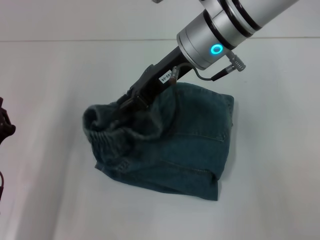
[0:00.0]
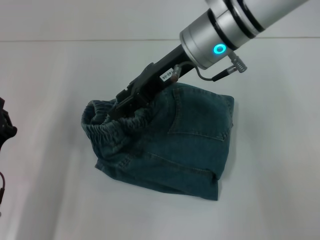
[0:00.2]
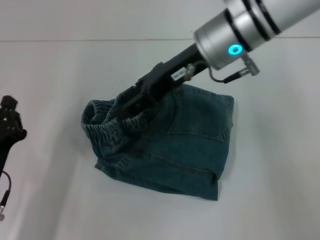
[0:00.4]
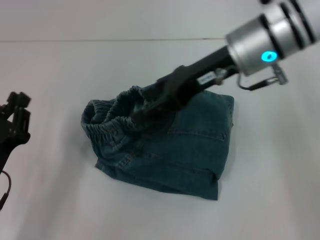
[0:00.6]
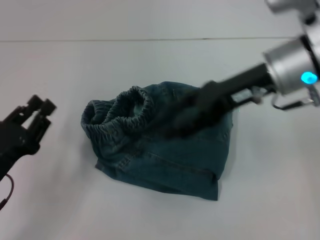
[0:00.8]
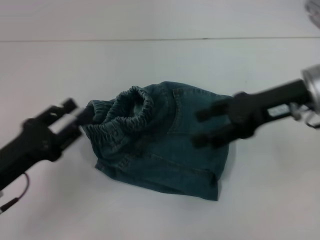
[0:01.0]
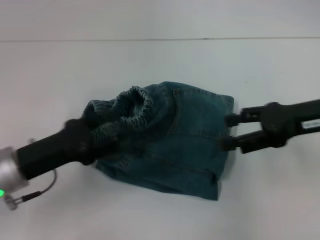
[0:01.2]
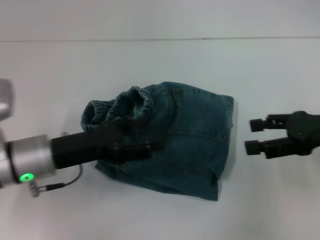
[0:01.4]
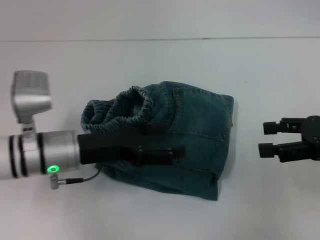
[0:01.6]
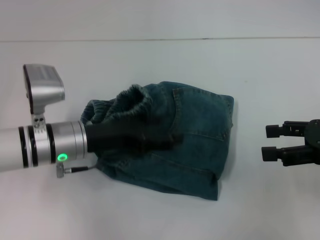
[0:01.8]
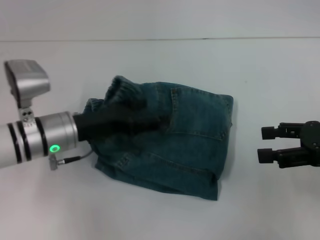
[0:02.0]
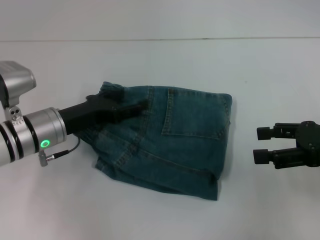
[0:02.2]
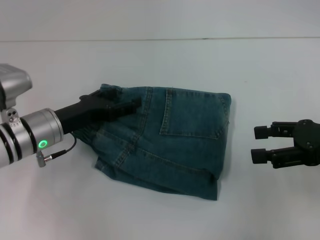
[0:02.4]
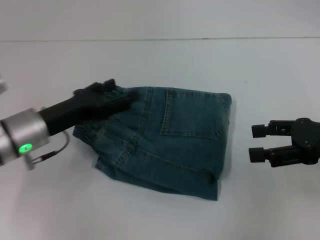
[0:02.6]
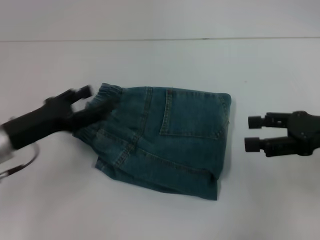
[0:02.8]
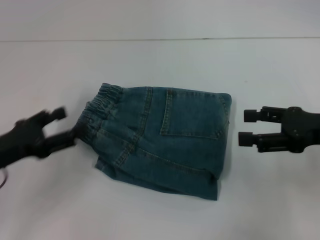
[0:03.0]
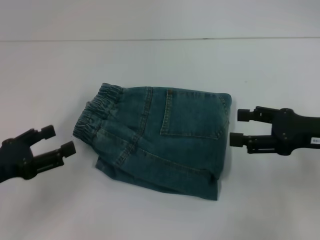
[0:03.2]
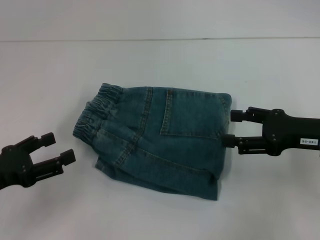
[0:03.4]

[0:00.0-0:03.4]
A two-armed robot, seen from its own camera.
0:00.0 to 0:01.6: The left gripper travels to the right, forward and upward by roughly 15 cm, and opens. The right gripper shifts about 30 cm to the right and backward, and opens its fingers.
0:01.6 to 0:03.4: The right gripper moves about 5 cm. The left gripper moves to the left and backward, approximately 15 cm.
